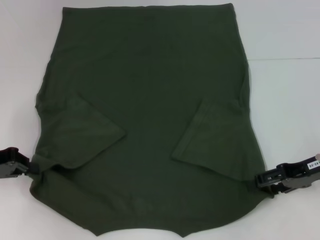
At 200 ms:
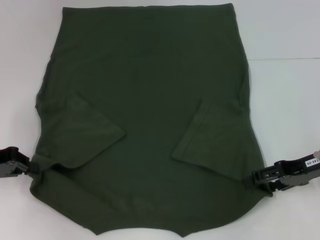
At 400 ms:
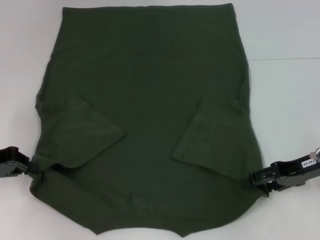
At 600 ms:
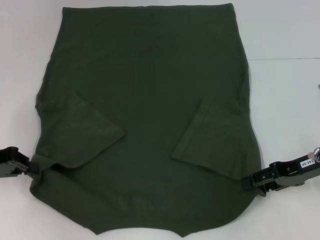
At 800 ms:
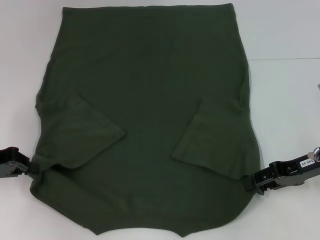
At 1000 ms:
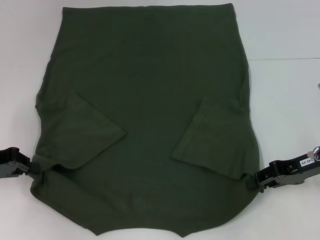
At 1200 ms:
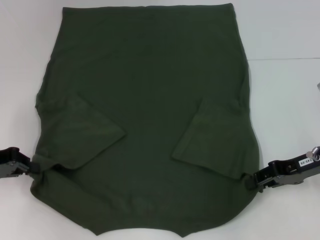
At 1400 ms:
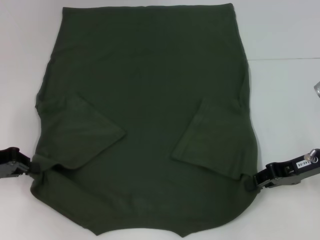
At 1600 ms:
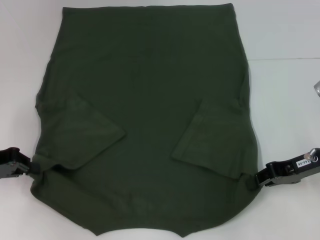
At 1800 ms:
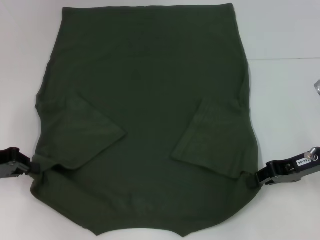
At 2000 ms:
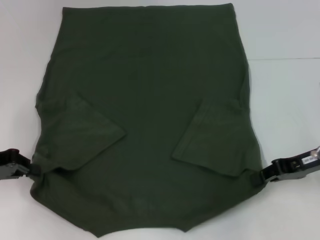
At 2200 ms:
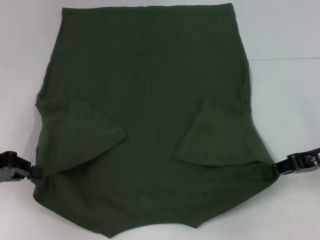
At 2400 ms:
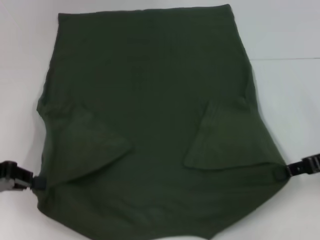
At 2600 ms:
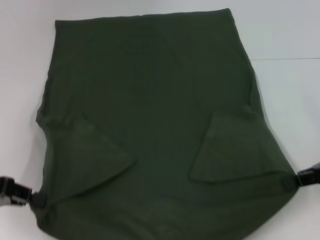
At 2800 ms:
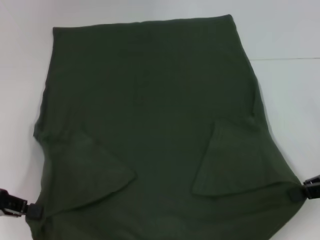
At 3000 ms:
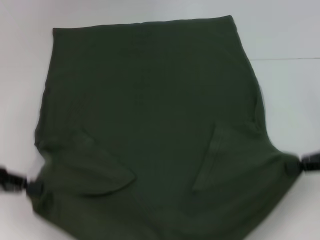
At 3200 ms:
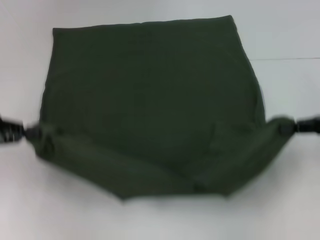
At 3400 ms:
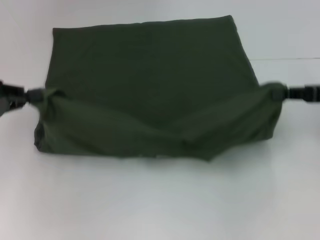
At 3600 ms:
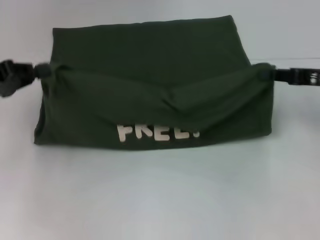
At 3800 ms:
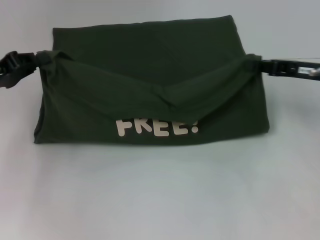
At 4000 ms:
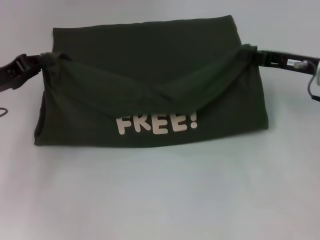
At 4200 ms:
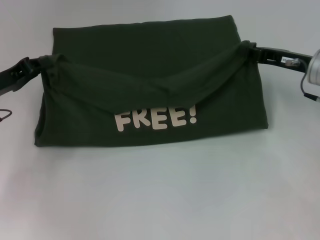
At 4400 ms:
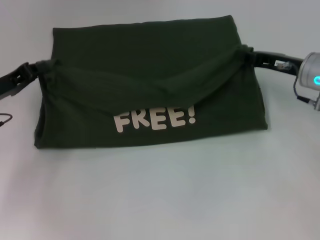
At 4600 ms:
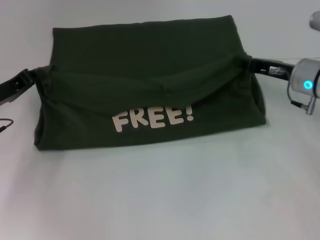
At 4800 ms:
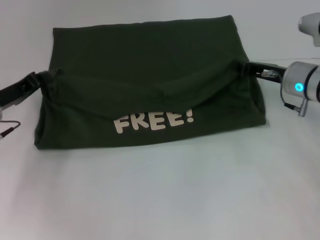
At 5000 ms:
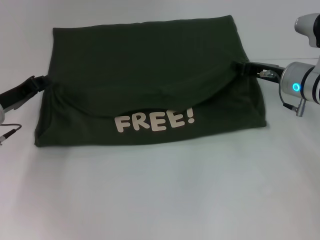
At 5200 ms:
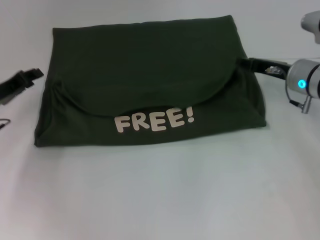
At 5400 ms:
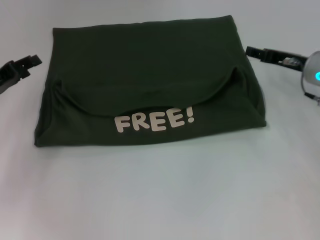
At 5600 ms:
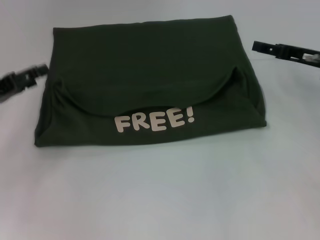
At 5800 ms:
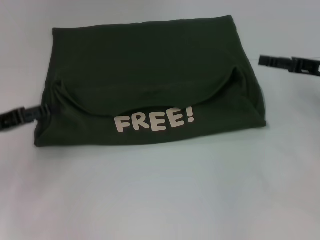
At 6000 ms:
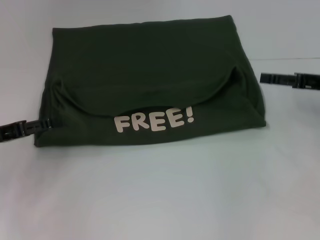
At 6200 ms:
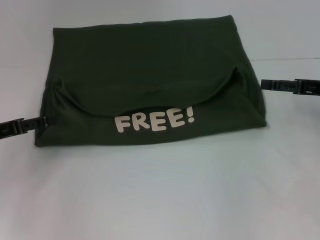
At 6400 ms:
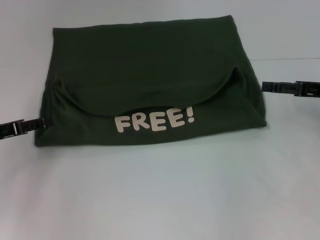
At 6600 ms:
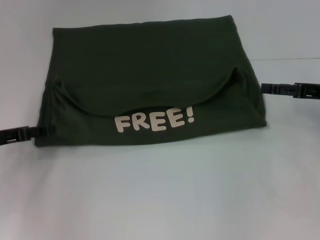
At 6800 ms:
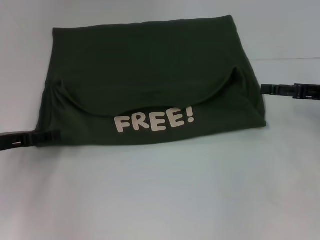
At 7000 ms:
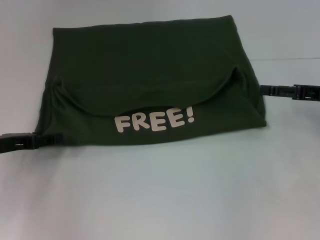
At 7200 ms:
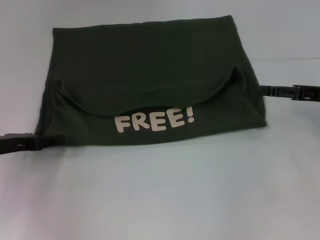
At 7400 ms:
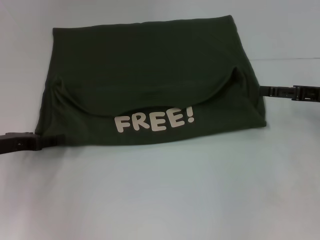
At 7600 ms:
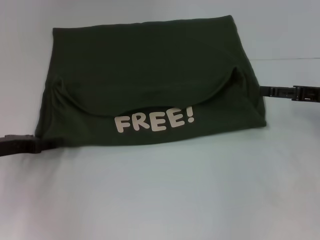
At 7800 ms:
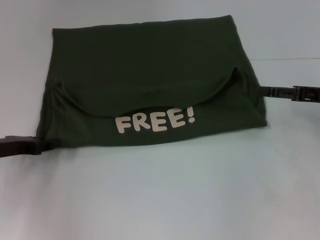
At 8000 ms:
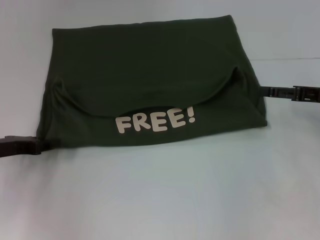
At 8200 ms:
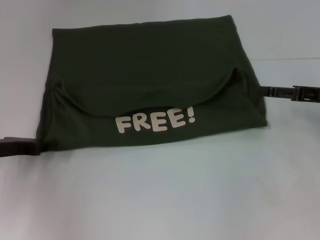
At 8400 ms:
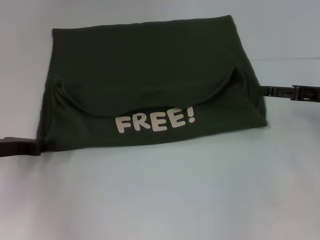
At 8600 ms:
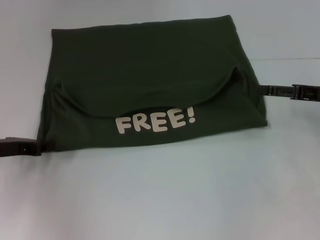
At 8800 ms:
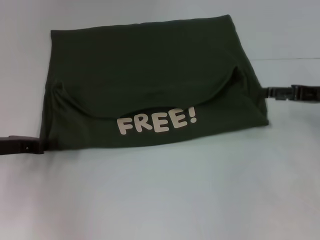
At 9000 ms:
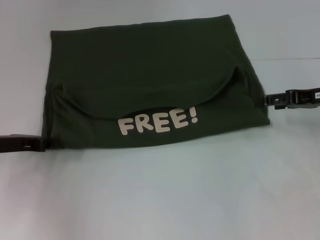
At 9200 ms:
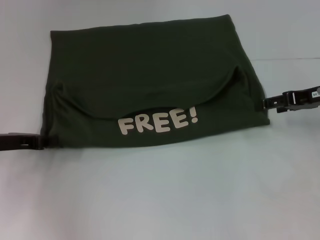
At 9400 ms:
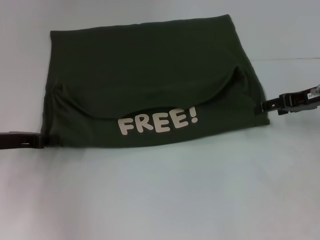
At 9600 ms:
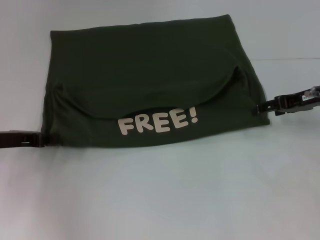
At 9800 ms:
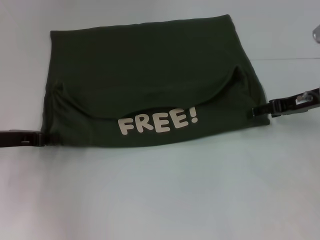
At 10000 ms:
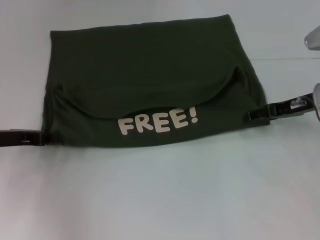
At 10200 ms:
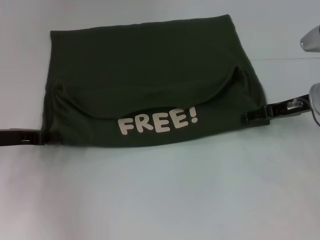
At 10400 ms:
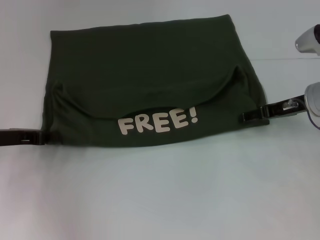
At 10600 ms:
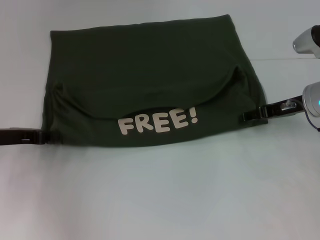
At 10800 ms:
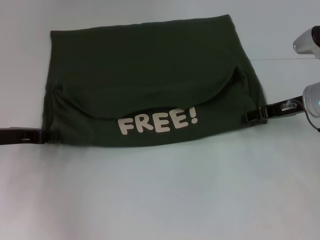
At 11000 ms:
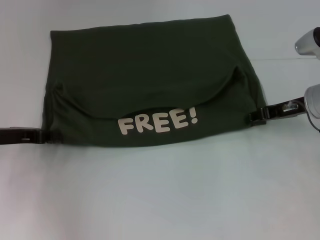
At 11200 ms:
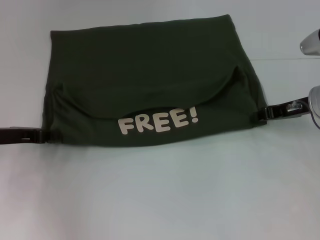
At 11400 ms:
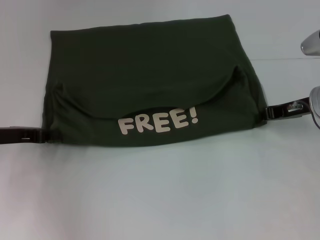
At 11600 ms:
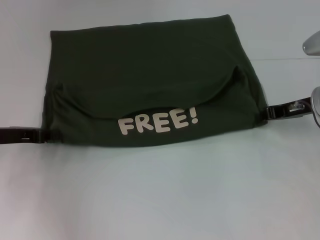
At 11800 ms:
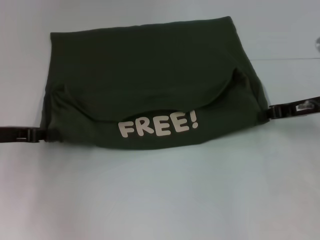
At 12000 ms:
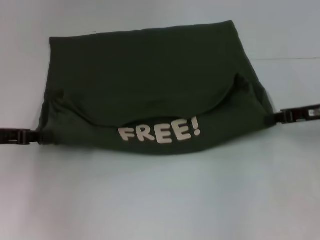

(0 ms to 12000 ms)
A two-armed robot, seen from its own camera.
Step, 0 ms - 2000 ms: Grab the bottom right corner with your right hand.
Step, 2200 ms - 5200 ms: Fold the clothes with your left hand.
Step, 2200 ms - 5200 ms: Fold the clothes with your right hand.
0 ms - 1600 ms: The right gripper closes up.
1600 ms - 3000 ms: The right gripper moves to the right, some 5 cm; the left gripper moves approximately 5 cm.
3000 ms - 4400 ms: The right gripper moves forward and to the left, approximately 15 cm. Meanwhile the left gripper shifts approximately 10 cm forward.
4400 ms - 6000 ms: The left gripper shifts about 5 cm backward, and opens its fingers, while the right gripper is displaced to the right by roughly 5 cm, and opens up.
7600 ms - 9000 ms: The left gripper closes.
9000 ms - 10400 ms: The right gripper heads to the left, covering about 5 cm.
10400 ms - 12000 ms: The right gripper moves about 5 cm, and closes.

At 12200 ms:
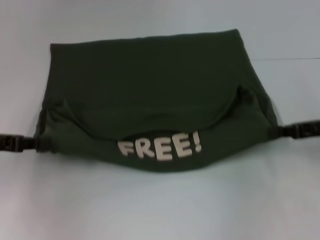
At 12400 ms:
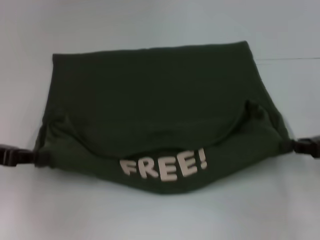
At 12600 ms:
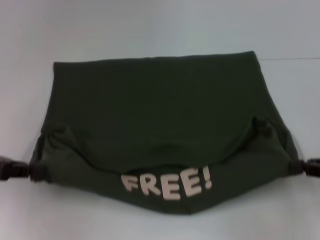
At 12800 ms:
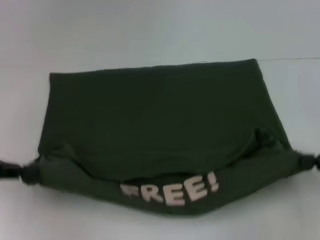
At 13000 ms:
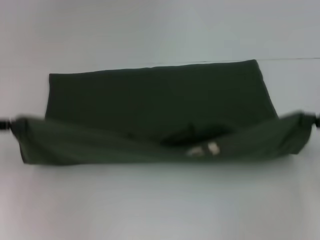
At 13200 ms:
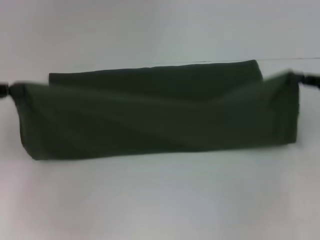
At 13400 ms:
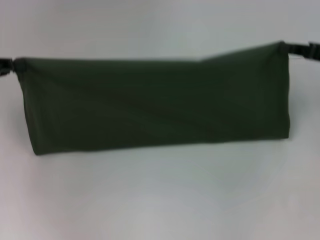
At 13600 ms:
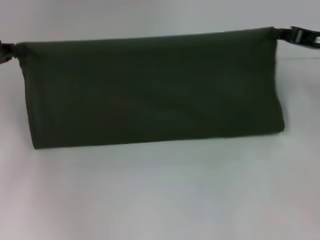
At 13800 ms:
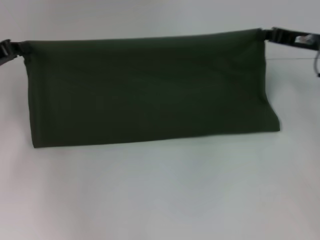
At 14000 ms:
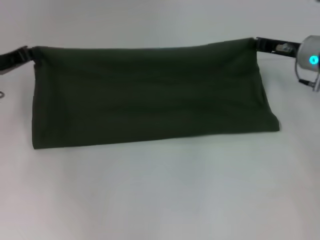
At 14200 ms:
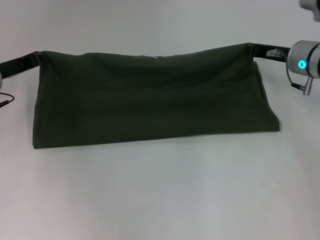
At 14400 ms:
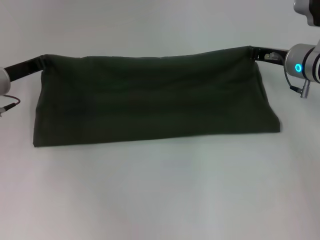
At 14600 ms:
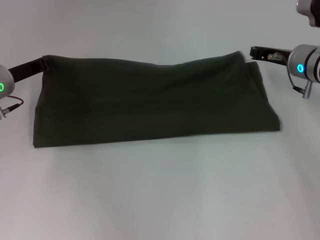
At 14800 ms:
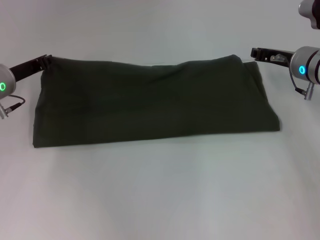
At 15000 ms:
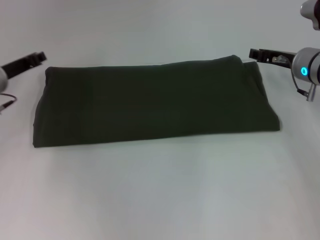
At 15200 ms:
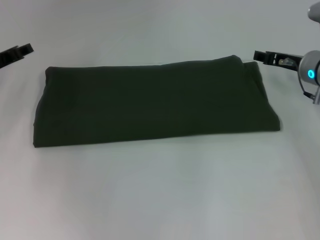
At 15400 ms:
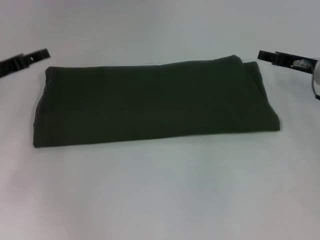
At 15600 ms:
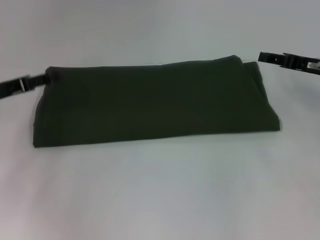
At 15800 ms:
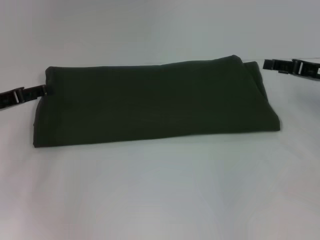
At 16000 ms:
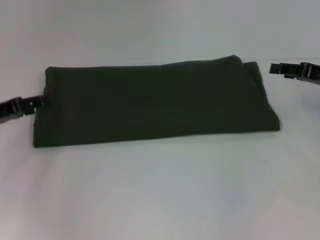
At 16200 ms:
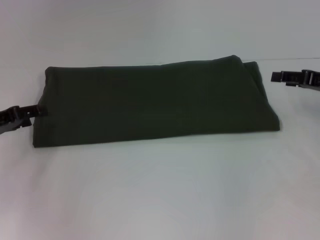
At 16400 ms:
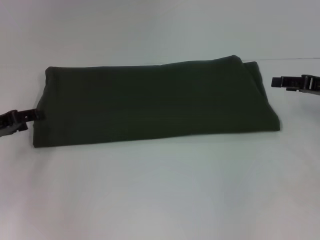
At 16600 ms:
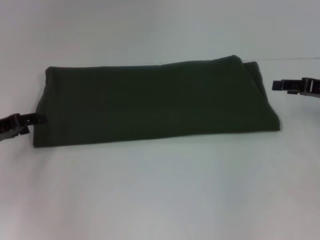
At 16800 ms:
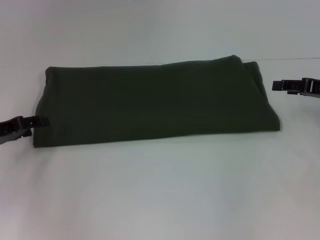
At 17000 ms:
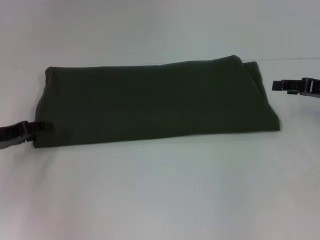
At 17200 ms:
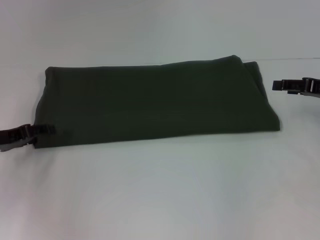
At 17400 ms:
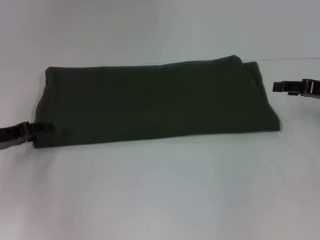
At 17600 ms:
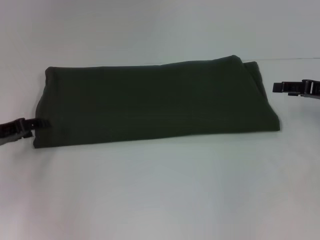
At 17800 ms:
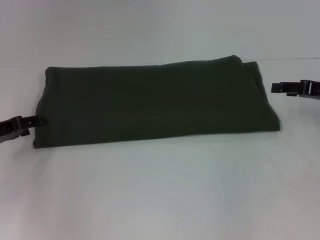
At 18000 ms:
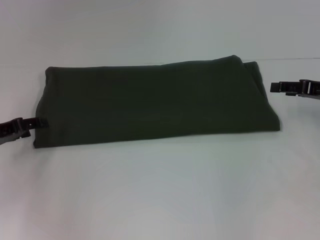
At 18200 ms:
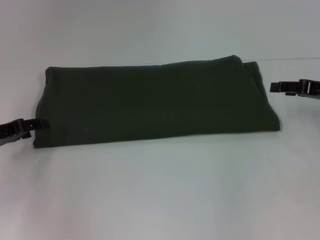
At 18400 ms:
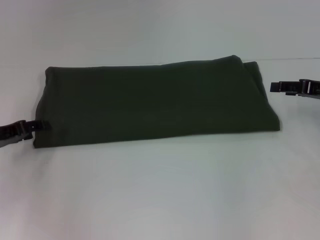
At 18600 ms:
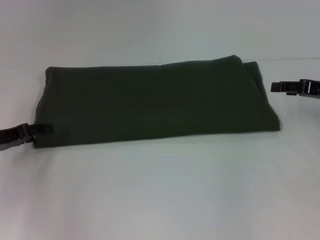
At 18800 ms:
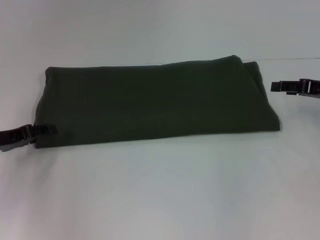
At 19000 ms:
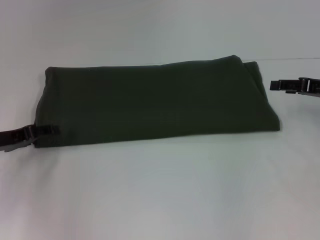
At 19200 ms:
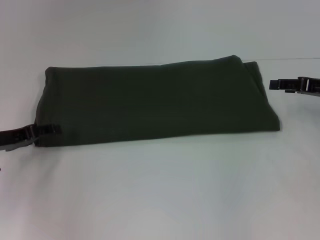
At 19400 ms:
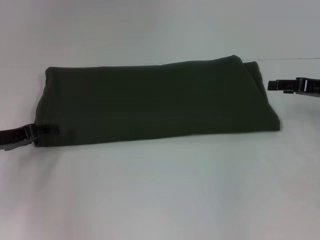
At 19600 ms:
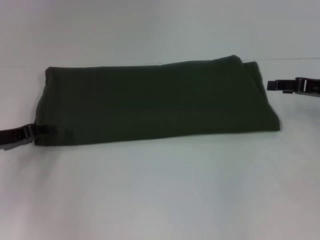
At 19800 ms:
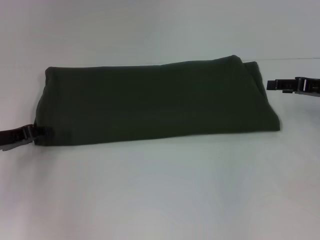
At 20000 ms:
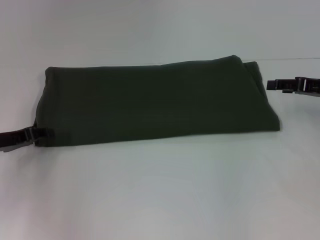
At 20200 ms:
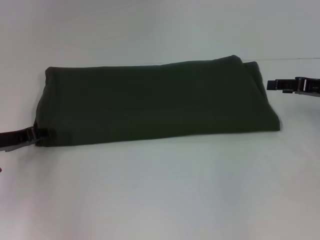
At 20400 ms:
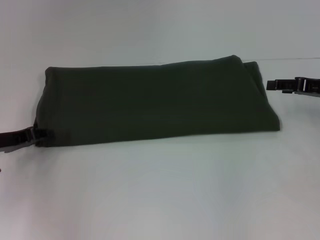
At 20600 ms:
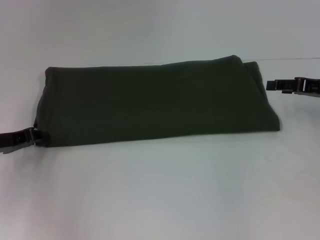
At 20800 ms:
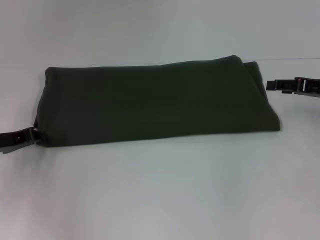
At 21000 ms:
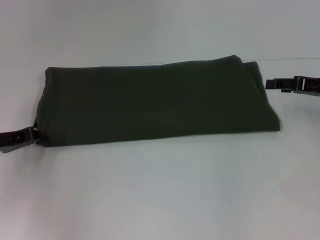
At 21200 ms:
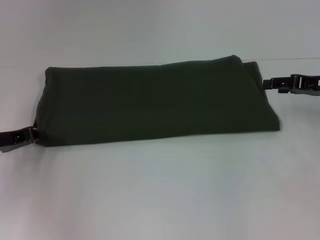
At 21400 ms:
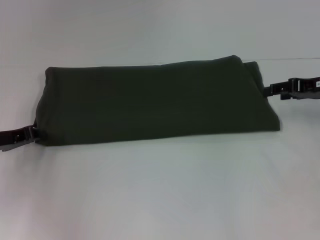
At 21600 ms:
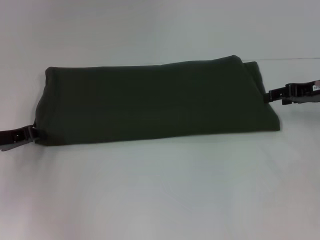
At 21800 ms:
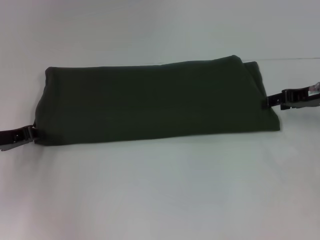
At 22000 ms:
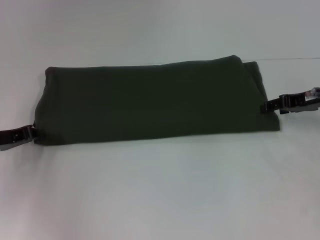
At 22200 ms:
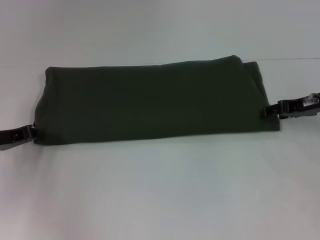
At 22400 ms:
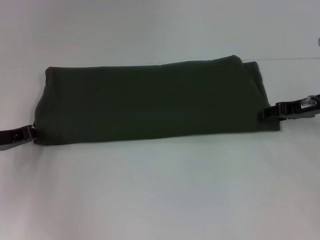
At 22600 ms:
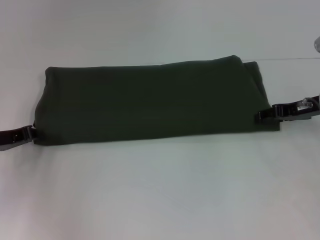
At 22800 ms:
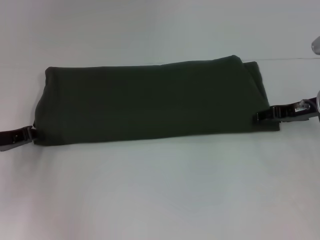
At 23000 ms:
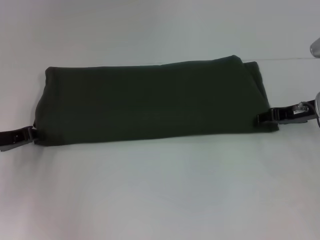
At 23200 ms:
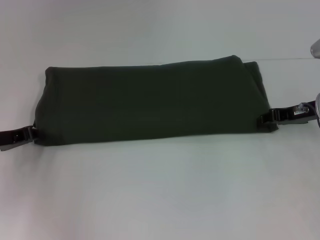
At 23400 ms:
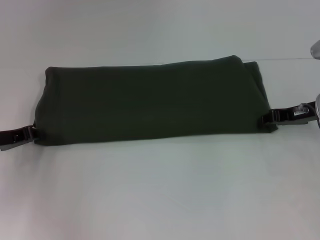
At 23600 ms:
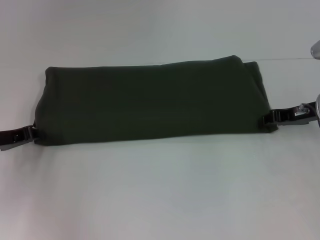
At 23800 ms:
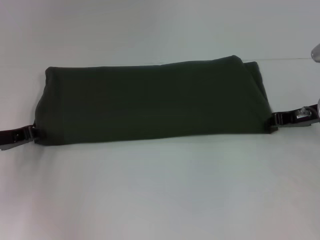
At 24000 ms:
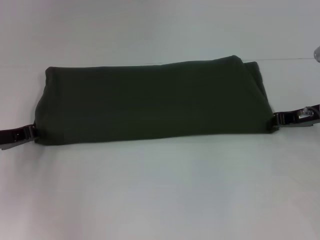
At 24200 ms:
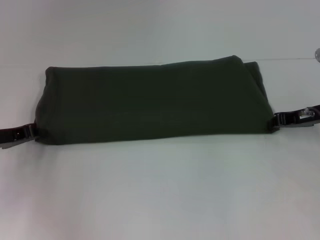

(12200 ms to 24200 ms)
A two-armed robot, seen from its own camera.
Step, 12600 ms - 14800 ms: Fold the clothes with your left hand.
Step, 12600 ms - 14800 ms: Fold the clothes with your right hand.
12200 ms - 13800 ms: Both grippers move forward, roughly 10 cm.
13800 ms - 15200 ms: The right gripper opens up.
15200 ms - 16600 ms: The left gripper is displaced backward by approximately 10 cm, and opens its fingers. The right gripper goes approximately 10 cm to the right and backward.
16600 ms - 19800 ms: The grippers stay close to where they were, moving slightly.
21200 ms - 22600 ms: The grippers make only small movements.
22600 ms - 24200 ms: The right gripper closes its fingers.
